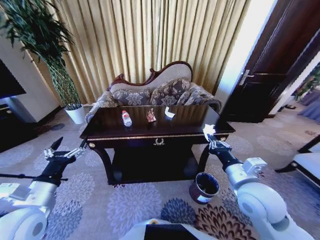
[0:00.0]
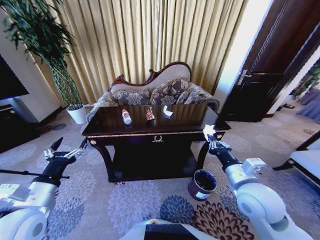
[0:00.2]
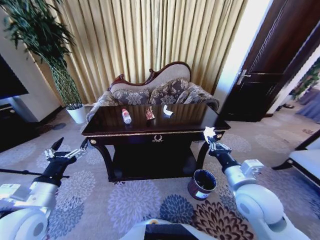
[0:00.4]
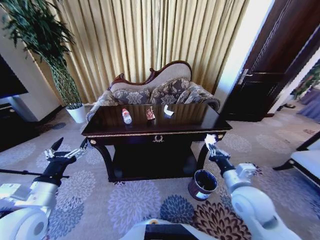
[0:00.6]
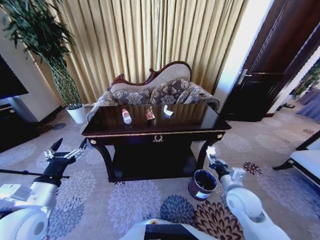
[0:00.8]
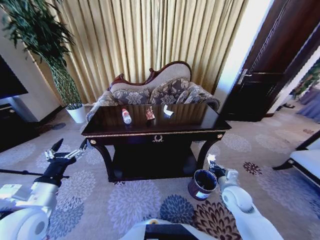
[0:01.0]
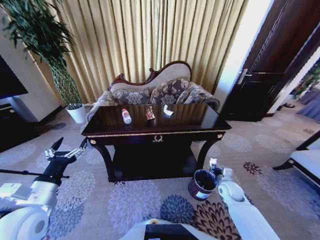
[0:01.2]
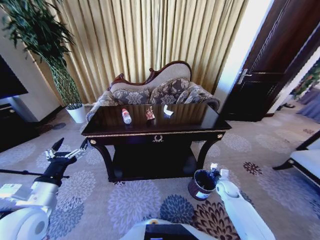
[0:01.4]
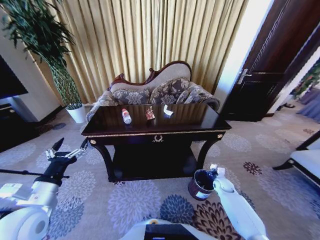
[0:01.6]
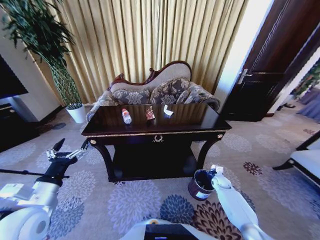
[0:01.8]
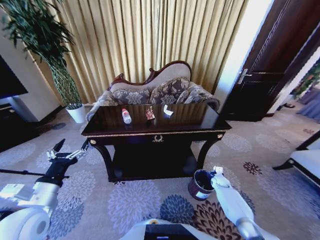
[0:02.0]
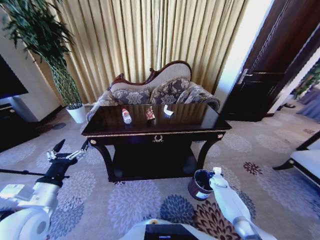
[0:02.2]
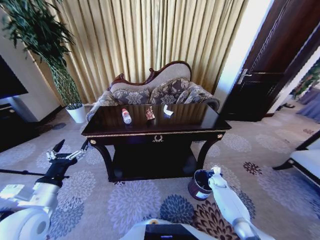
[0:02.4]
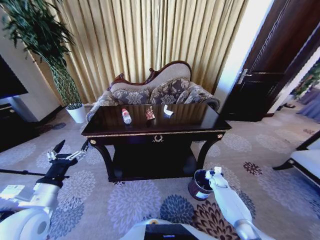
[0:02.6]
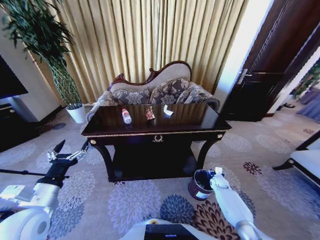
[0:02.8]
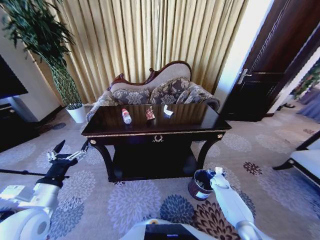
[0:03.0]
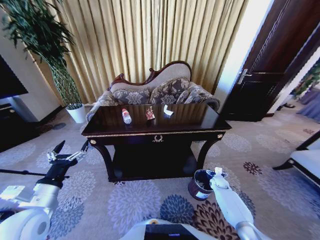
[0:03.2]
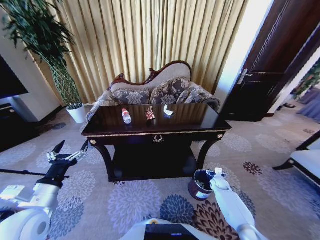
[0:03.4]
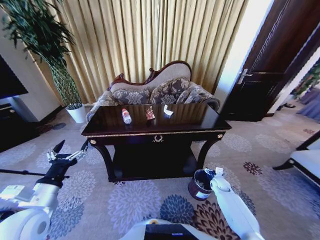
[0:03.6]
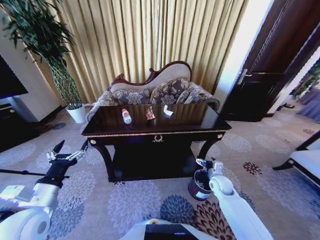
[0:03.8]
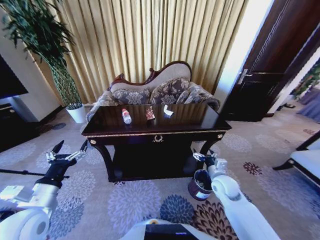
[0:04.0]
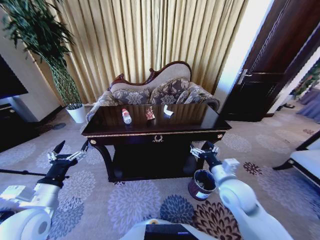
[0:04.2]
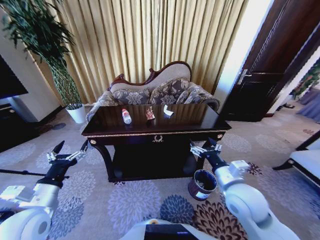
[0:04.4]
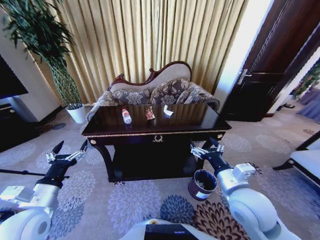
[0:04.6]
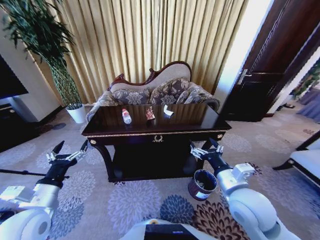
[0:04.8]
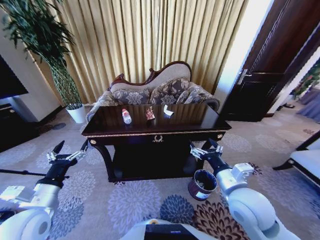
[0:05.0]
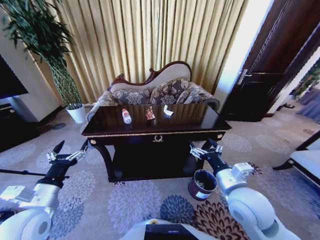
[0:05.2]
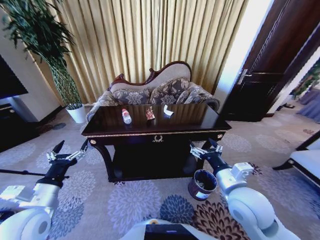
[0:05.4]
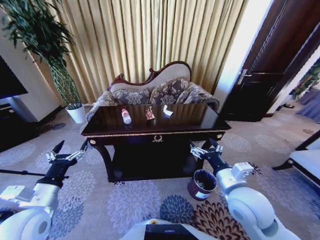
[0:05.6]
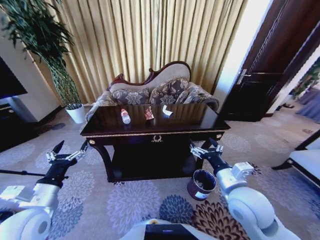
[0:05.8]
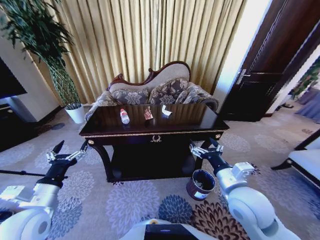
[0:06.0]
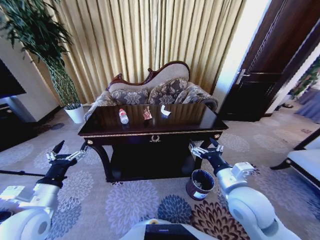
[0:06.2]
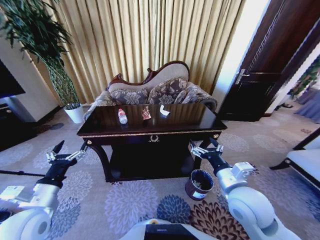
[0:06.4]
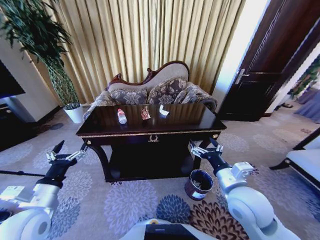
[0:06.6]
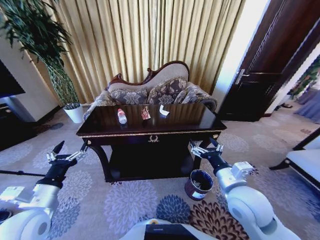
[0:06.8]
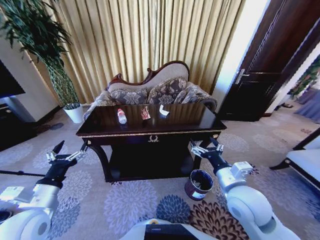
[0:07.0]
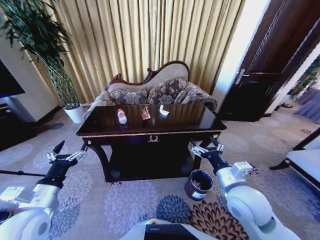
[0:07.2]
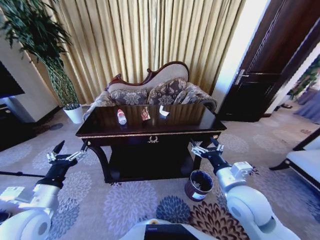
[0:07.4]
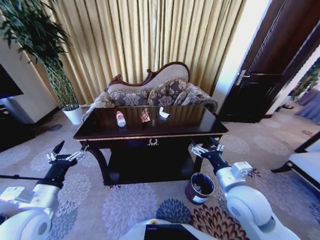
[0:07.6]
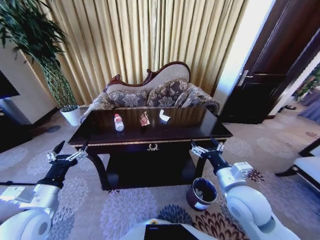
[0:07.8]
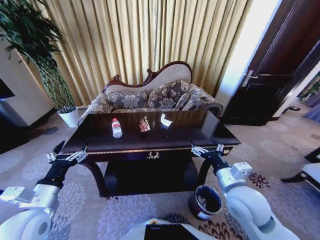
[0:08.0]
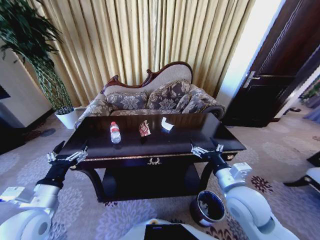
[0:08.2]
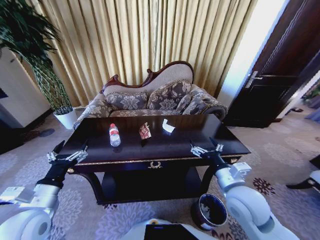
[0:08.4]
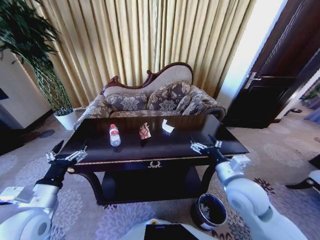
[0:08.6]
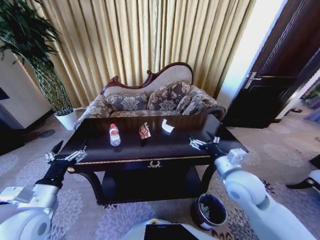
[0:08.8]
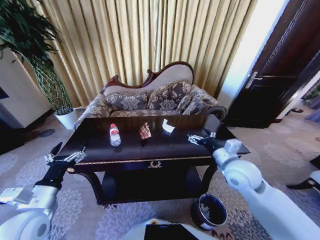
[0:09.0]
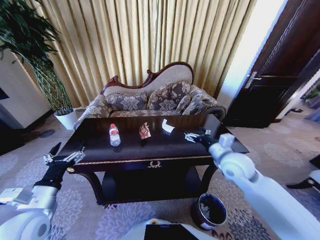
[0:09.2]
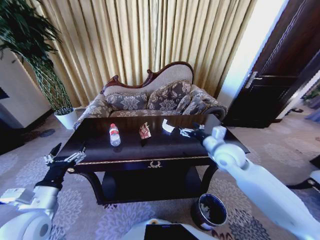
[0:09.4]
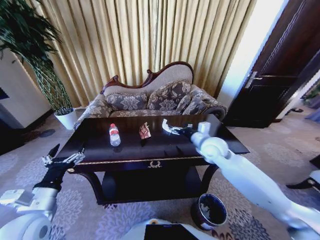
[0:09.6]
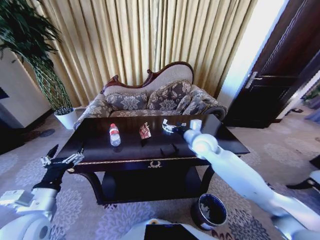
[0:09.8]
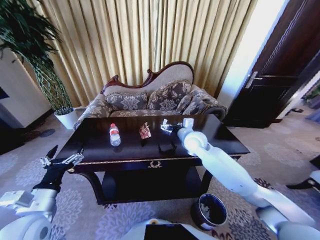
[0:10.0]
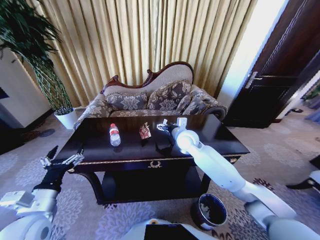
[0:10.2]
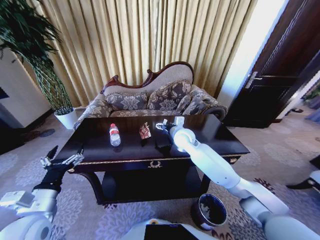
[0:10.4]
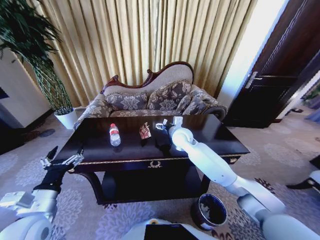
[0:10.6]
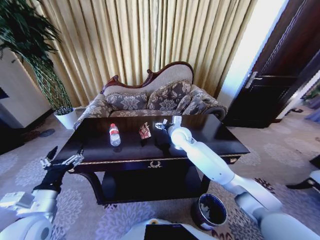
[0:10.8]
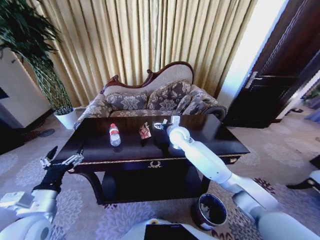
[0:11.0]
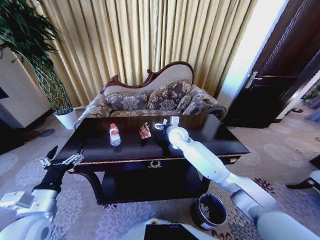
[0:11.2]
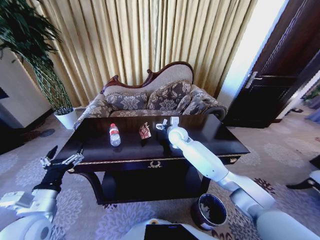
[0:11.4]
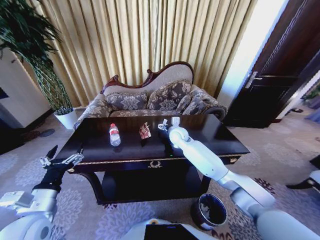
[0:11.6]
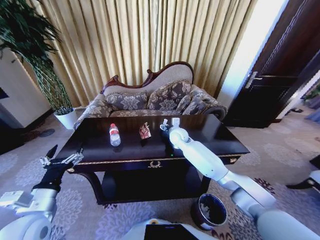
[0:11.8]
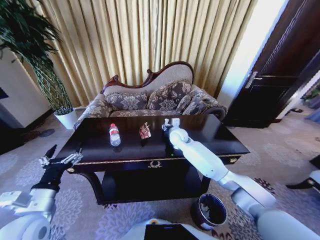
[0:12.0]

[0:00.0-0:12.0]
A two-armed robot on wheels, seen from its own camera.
Task of the whole recording: Move to the front of the table and place the trash on the table into the trash bin.
0:00.0 to 0:01.6: The right gripper shifts roughly 35 cm downward, forward and to the right.
0:01.6 to 0:03.0: The right gripper opens up.
0:03.0 to 0:04.4: The right gripper shifts some 40 cm upward, backward and to the left.
0:04.4 to 0:06.0: The two grippers keep their place.
0:07.6 to 0:09.0: The right gripper is displaced forward by approximately 10 cm.
0:09.0 to 0:10.4: The right gripper goes roughly 25 cm forward and to the left.
0:10.4 to 0:12.0: The right gripper moves roughly 5 cm, and closes up.

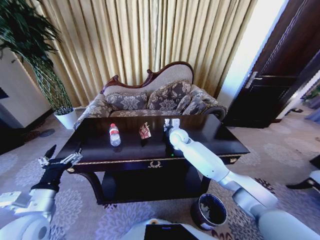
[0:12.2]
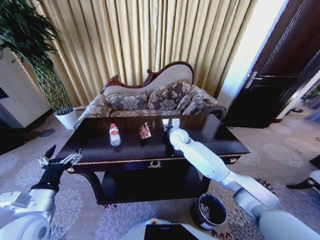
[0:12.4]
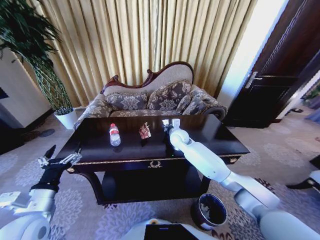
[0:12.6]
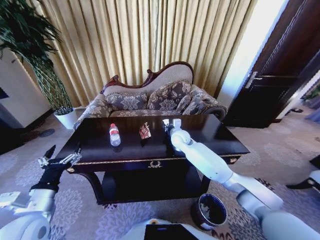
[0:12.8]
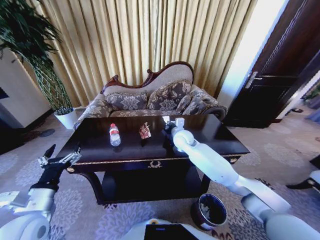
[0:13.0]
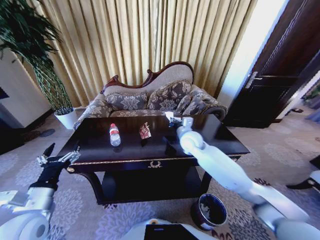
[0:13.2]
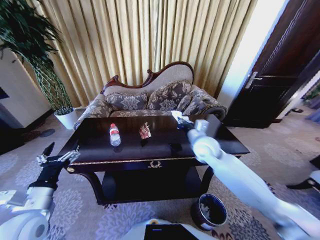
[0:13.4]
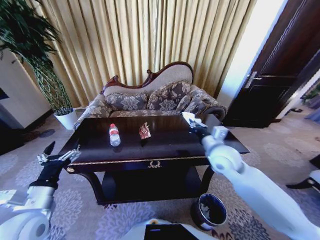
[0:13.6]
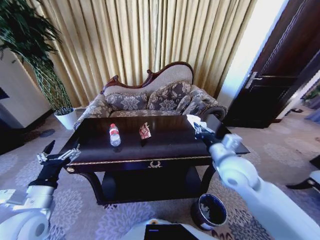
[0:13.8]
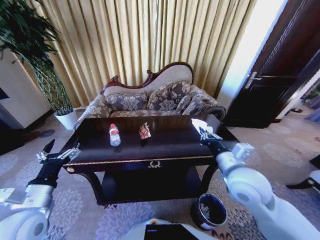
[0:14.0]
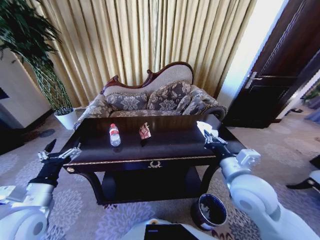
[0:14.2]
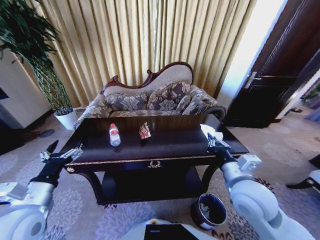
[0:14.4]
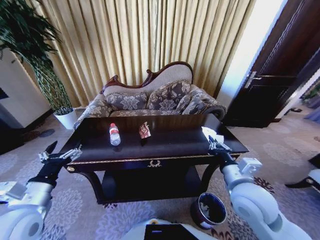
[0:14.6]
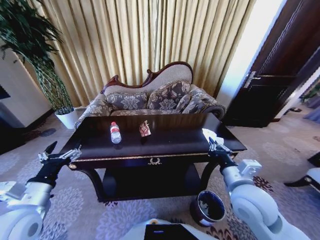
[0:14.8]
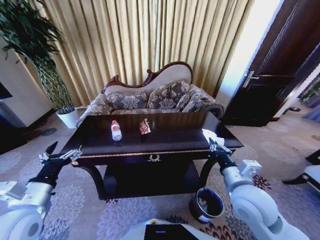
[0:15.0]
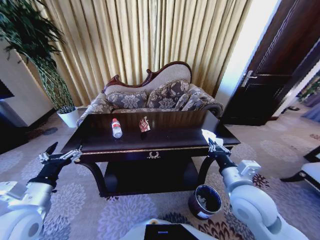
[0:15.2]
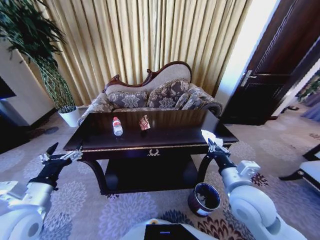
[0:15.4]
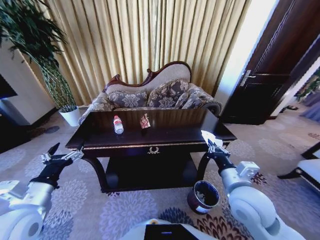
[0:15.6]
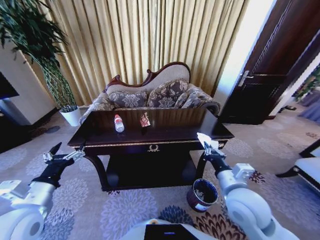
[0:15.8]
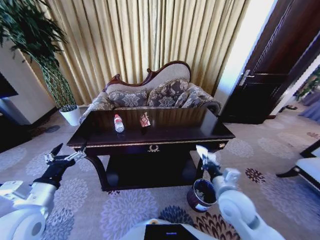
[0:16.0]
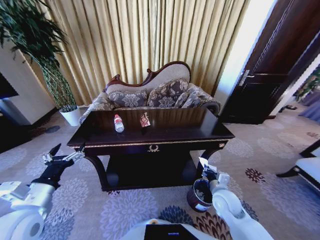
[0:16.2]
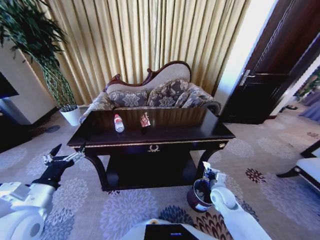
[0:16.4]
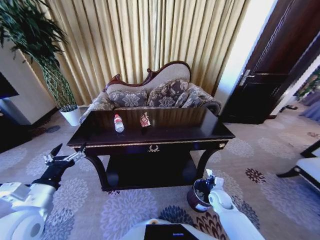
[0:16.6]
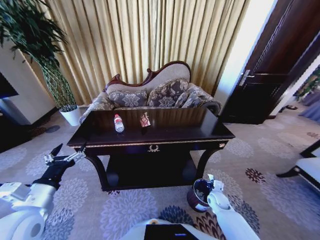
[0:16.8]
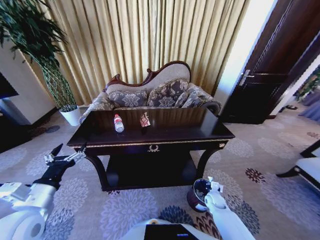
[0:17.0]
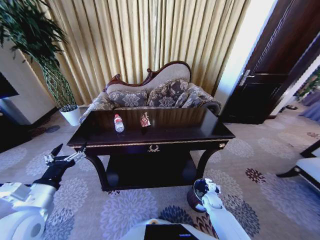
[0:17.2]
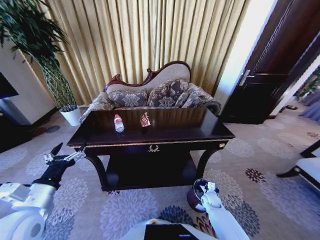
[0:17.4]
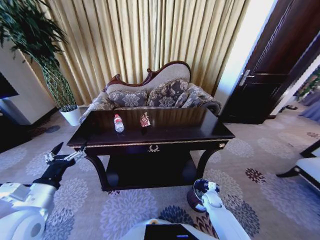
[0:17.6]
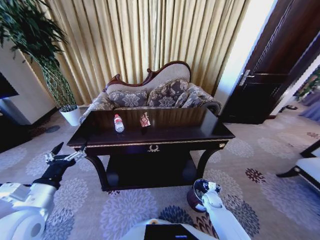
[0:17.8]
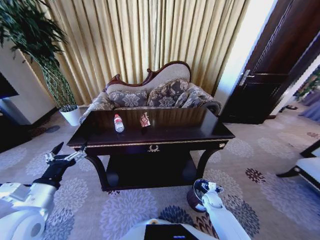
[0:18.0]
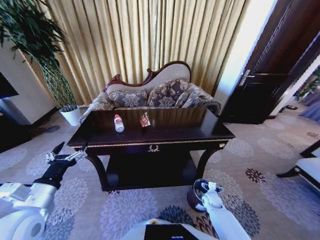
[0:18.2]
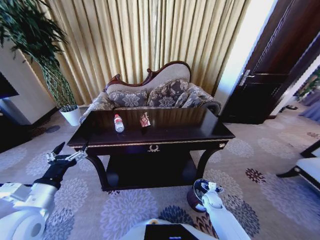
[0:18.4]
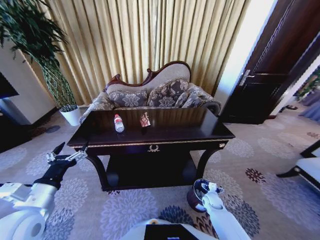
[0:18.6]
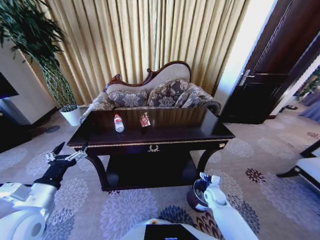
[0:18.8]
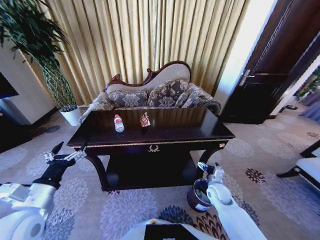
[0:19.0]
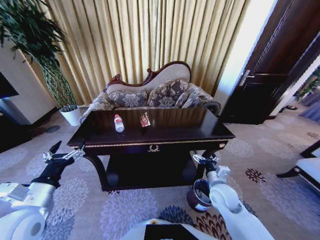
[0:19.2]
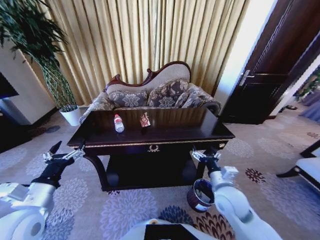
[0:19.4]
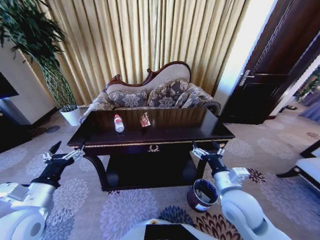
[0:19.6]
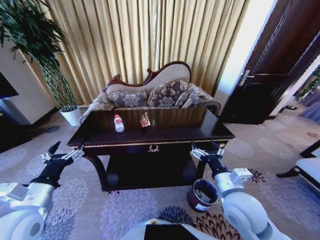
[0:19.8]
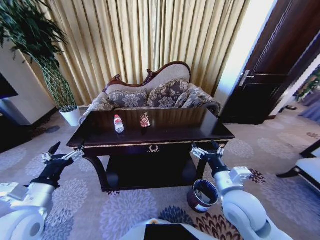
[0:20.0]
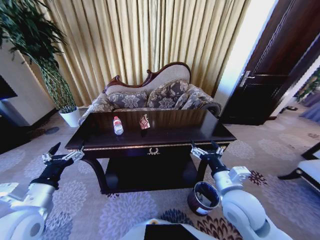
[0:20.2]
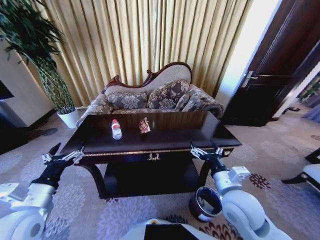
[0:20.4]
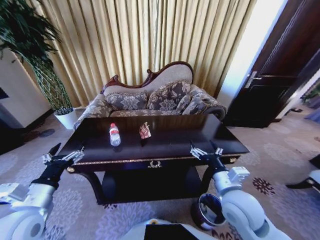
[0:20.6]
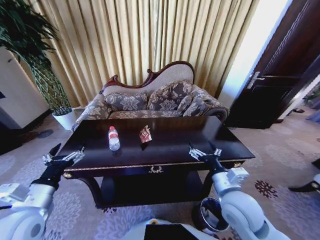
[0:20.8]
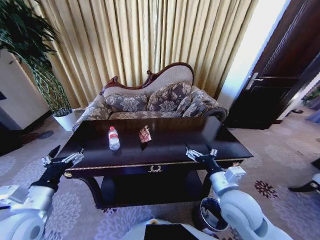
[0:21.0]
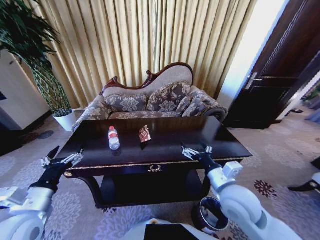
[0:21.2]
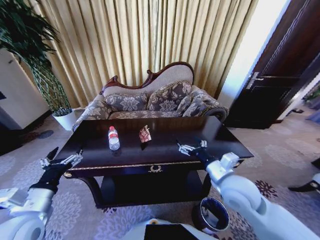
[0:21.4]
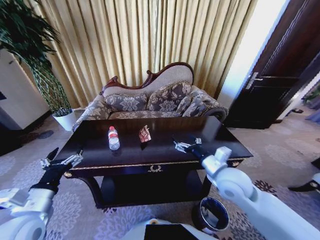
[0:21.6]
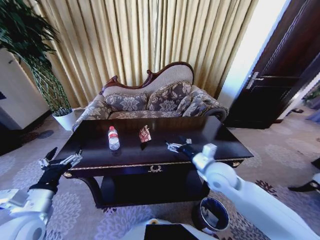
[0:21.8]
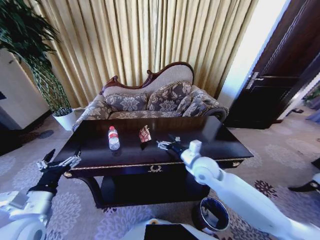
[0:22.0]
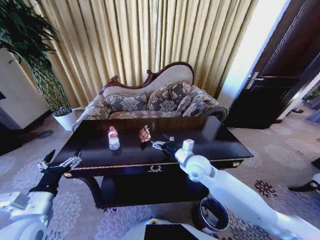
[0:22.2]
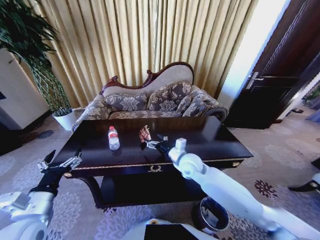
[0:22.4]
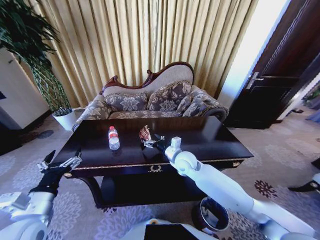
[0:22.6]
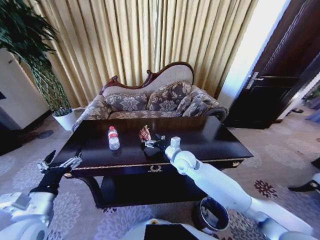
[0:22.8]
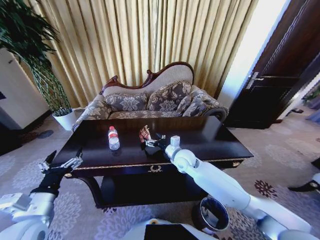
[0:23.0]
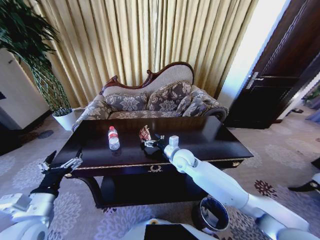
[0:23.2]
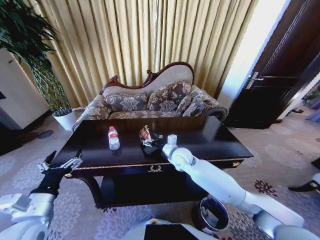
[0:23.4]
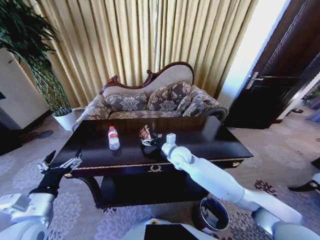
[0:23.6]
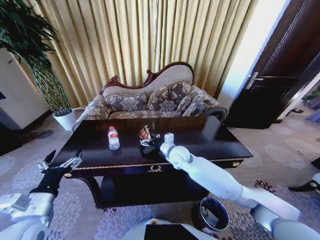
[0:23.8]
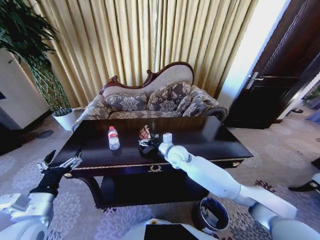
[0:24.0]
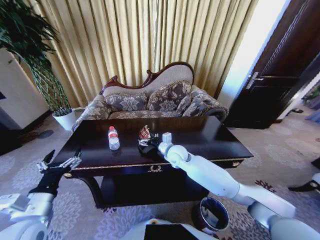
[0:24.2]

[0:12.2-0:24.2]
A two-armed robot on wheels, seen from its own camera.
Task of the whole recording: Move to the front of the table and place the trash on the table into the trash bin.
0:12.2 to 0:13.8: The right gripper shifts roughly 25 cm backward and to the right, and closes its fingers.
0:13.8 to 0:15.2: The right gripper is displaced backward by some 10 cm.
0:15.2 to 0:16.6: The right gripper goes roughly 25 cm downward.
0:16.6 to 0:18.2: The right gripper shifts some 10 cm downward, and opens up.
0:18.2 to 0:19.8: The right gripper goes about 35 cm upward.
0:21.2 to 0:22.6: The right gripper heads forward and to the left, covering approximately 20 cm.
0:22.6 to 0:24.2: There are only small adjustments of the grippers.
